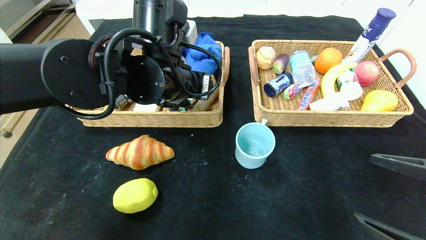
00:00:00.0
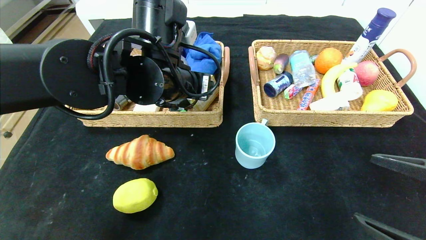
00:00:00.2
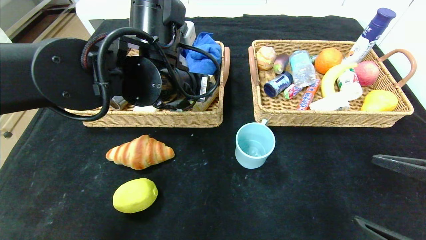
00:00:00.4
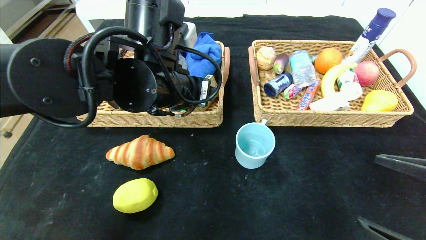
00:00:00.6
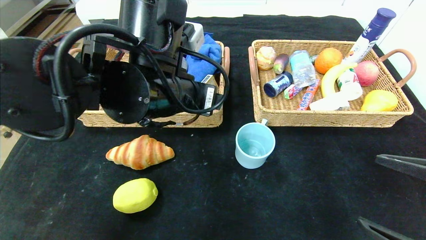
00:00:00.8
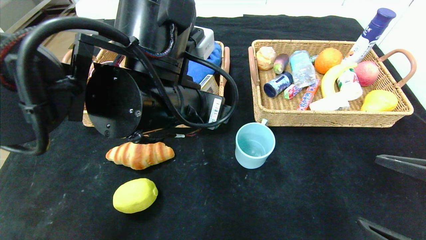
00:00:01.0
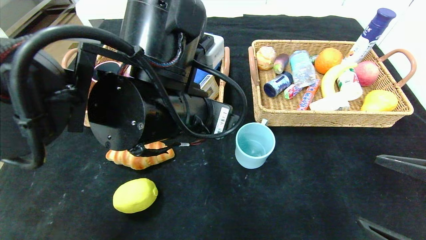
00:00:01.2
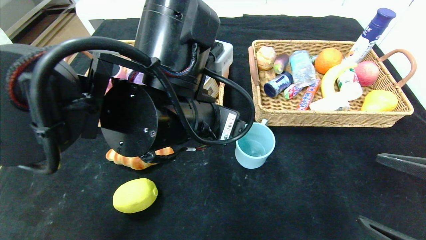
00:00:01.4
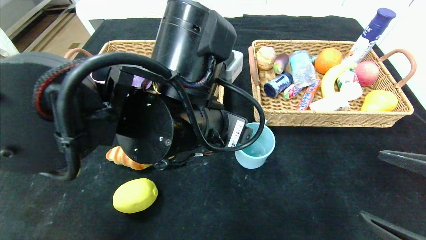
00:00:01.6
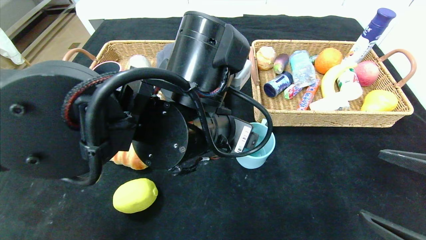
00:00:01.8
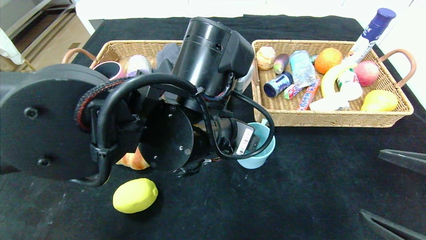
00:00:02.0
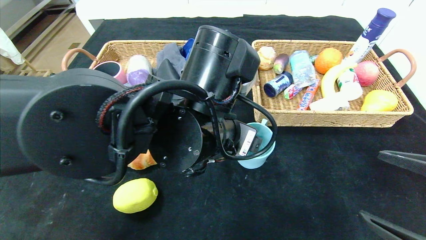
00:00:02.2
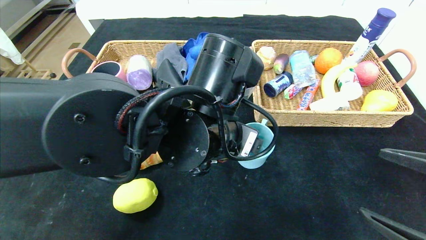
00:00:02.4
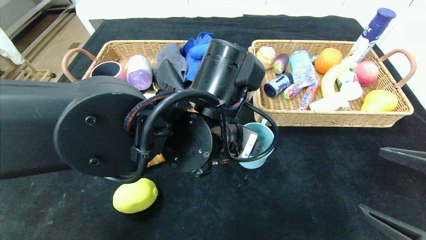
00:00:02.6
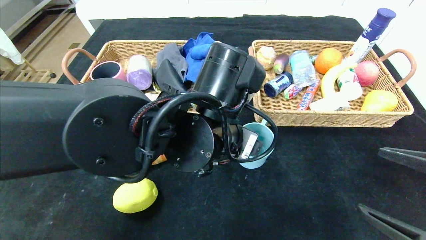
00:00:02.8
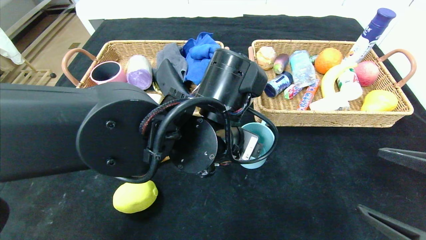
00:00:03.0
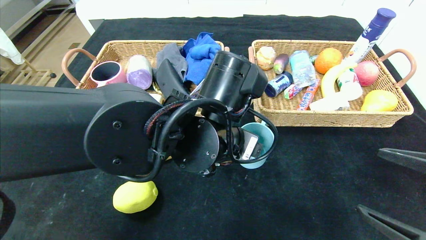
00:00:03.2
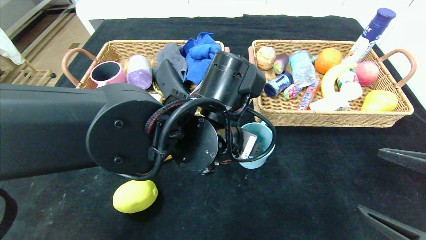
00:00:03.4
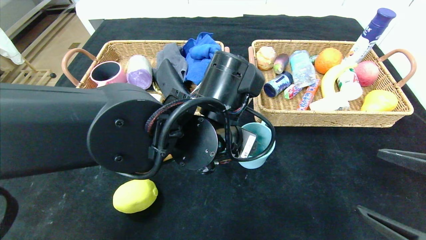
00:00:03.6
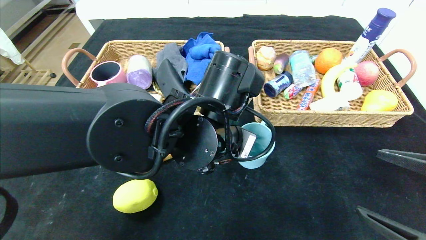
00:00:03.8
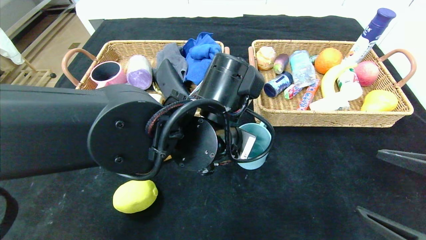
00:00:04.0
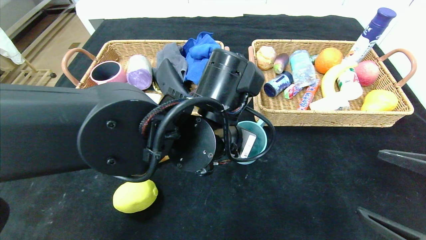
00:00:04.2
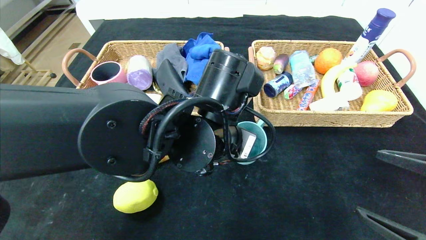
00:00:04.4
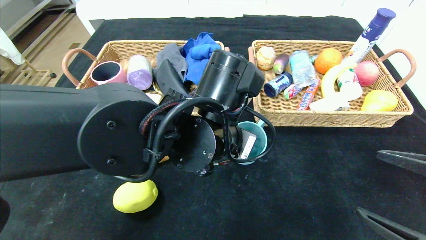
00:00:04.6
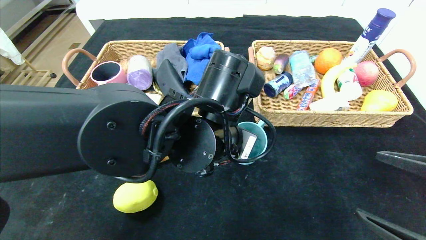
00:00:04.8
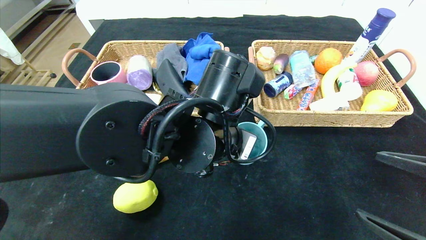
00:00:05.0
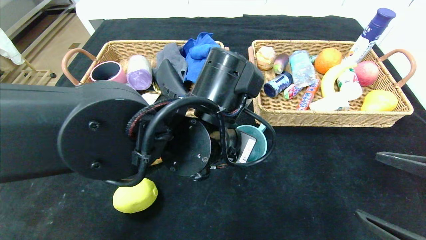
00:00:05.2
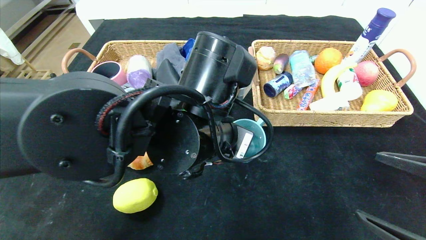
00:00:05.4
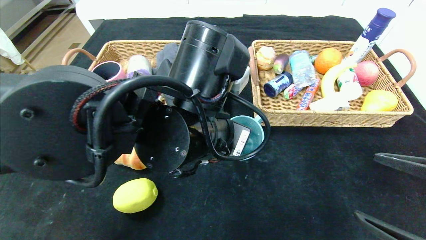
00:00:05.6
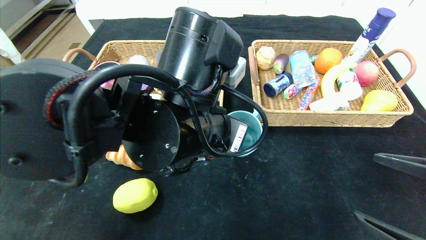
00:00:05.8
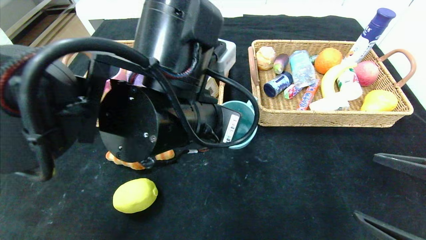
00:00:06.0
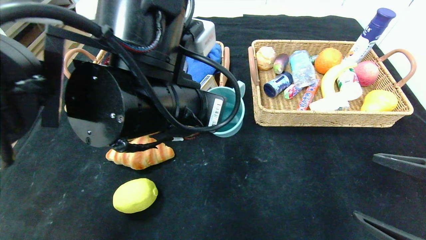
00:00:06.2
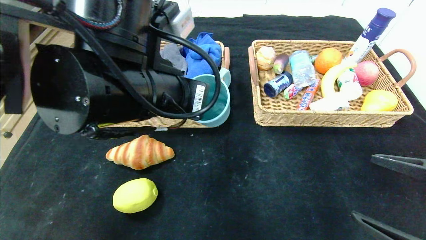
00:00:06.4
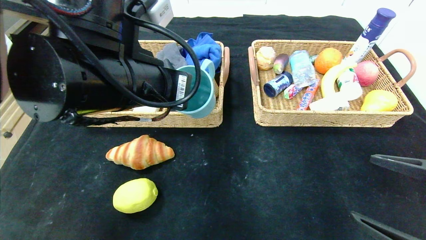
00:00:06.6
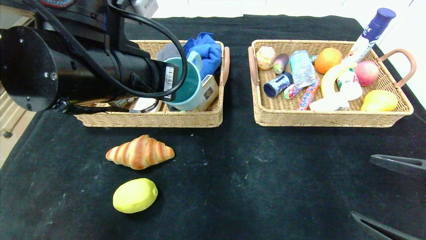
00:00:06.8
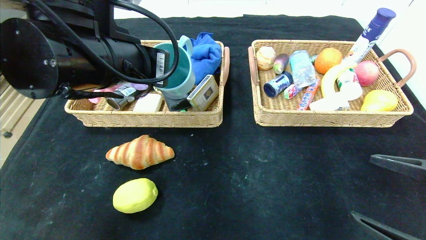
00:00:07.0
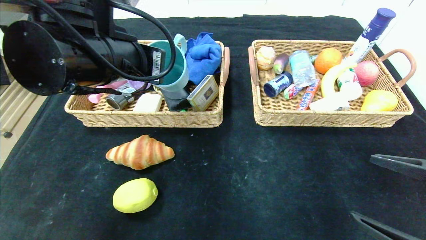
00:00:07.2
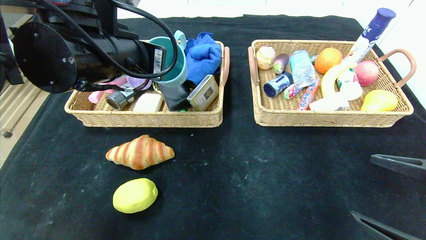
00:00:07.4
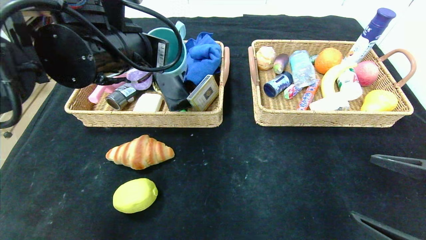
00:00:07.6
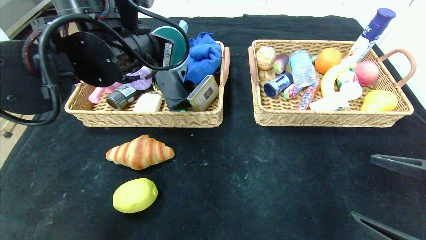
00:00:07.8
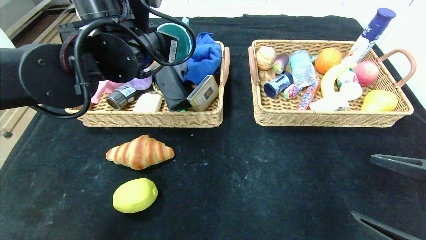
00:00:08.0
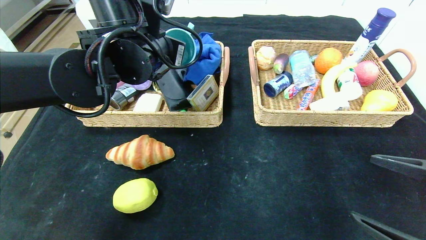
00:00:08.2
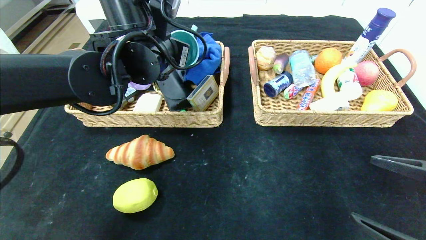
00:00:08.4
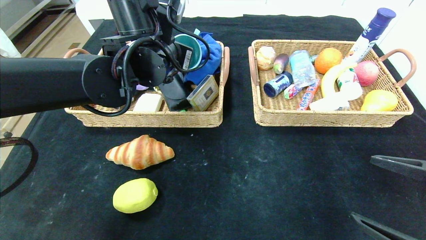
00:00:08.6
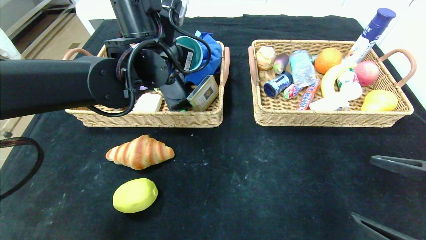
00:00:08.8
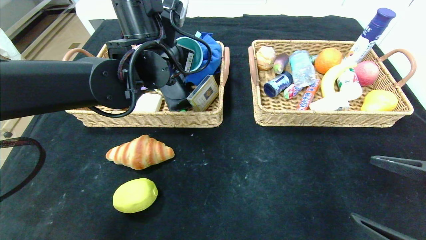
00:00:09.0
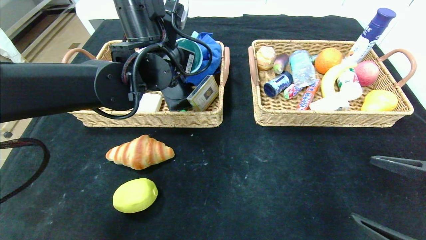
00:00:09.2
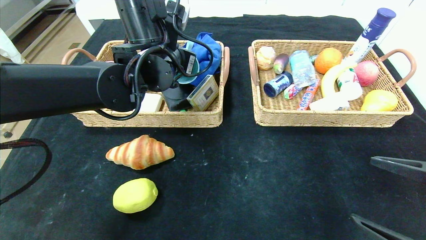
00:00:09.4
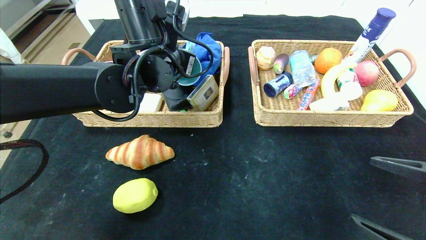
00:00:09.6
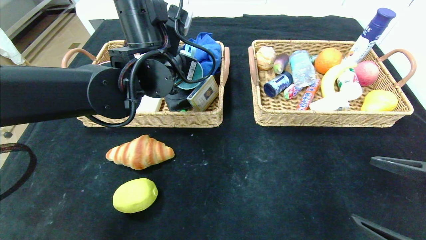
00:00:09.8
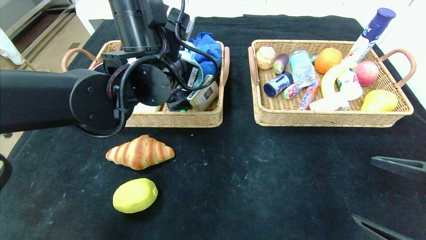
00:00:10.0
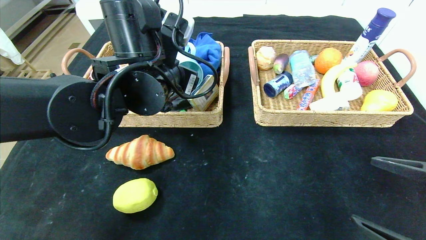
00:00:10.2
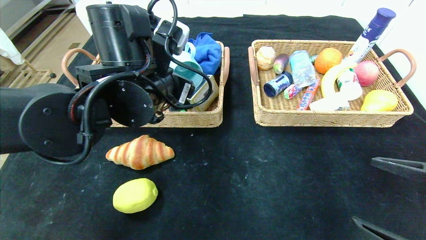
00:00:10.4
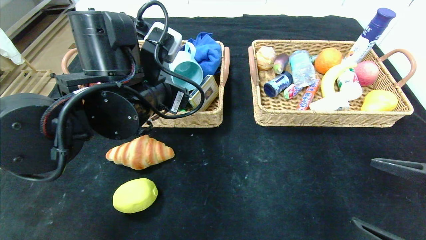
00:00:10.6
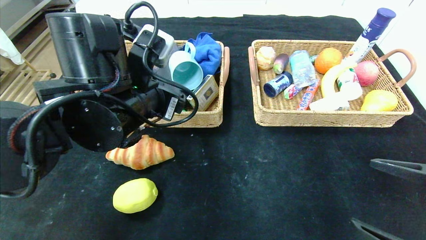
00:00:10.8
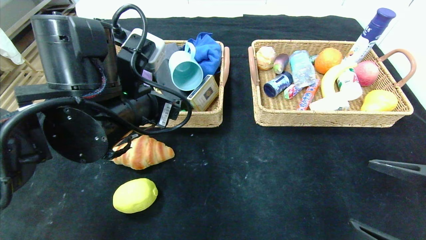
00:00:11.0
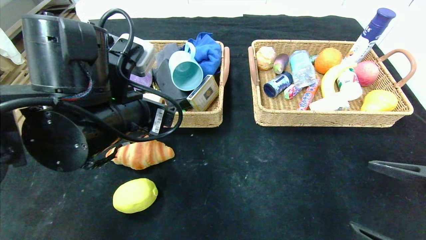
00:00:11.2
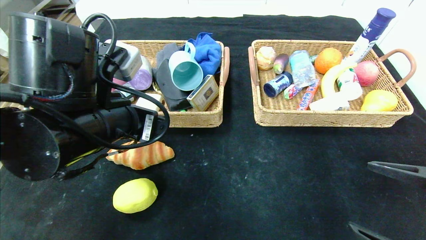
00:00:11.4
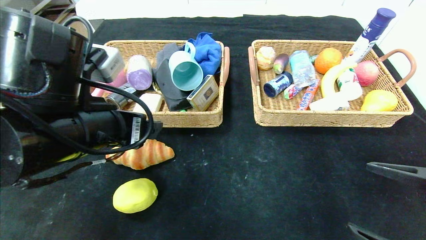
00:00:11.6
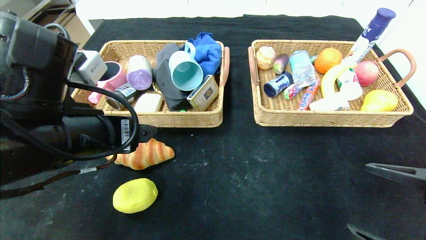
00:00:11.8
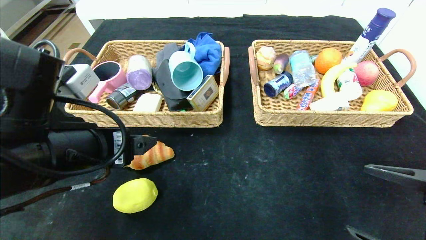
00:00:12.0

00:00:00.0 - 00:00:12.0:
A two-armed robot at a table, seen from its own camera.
Step, 00:00:00.0 - 00:00:10.4: Grasp the blue cup and put it in the left basket.
00:00:00.0 - 00:00:01.6: The left gripper travels backward by roughly 10 cm.
00:00:03.0 - 00:00:04.4: The left gripper closes.
00:00:04.4 - 00:00:06.0: The left gripper changes place by some 5 cm.
00:00:06.0 - 00:00:07.6: The left gripper heads to the left, forward and upward, covering roughly 10 cm.
00:00:07.6 - 00:00:09.0: The left gripper moves forward, approximately 10 cm.
00:00:09.0 - 00:00:10.4: The left gripper goes some 10 cm backward, and opens its fingers.
00:00:10.4 - 00:00:12.0: The left gripper moves backward and to the left, approximately 15 cm.

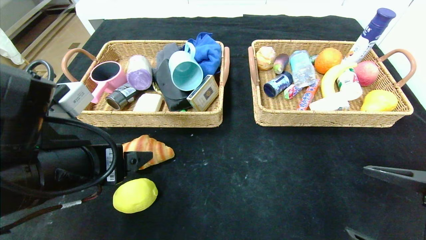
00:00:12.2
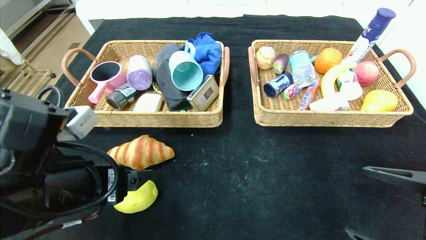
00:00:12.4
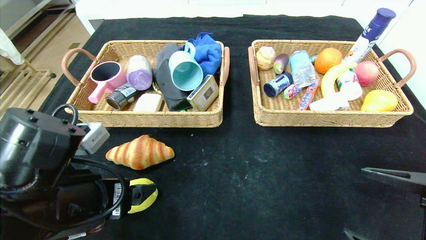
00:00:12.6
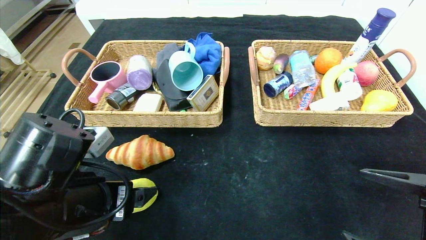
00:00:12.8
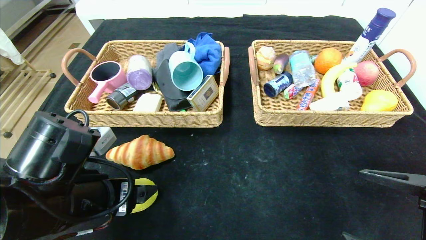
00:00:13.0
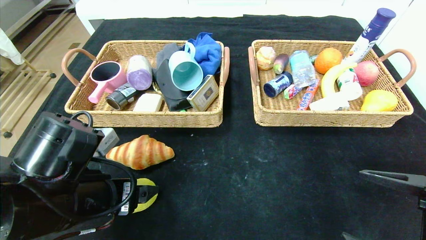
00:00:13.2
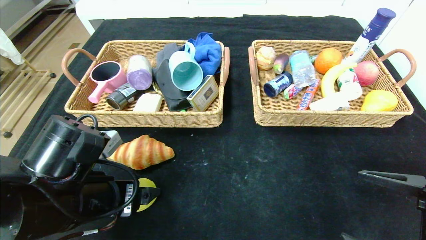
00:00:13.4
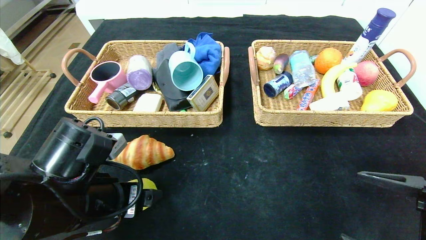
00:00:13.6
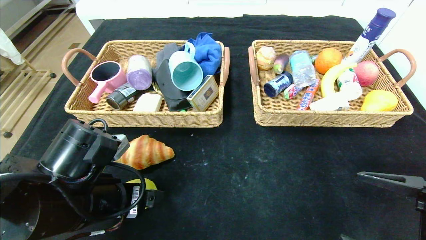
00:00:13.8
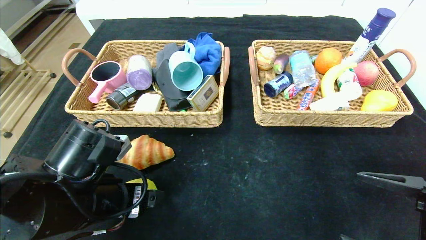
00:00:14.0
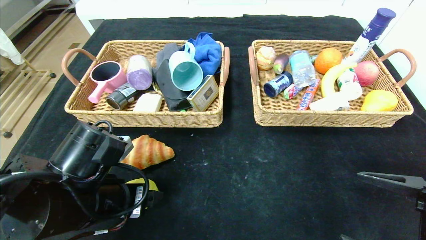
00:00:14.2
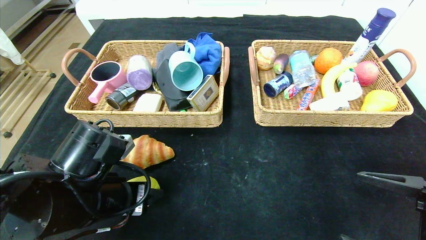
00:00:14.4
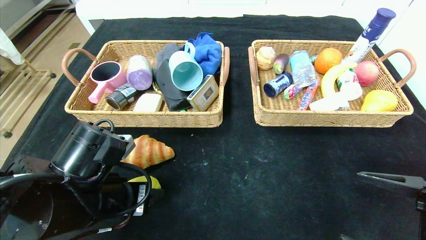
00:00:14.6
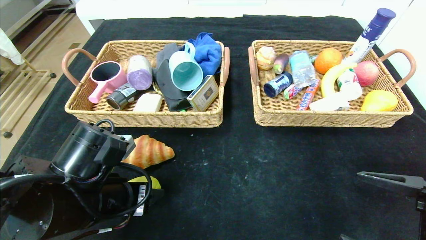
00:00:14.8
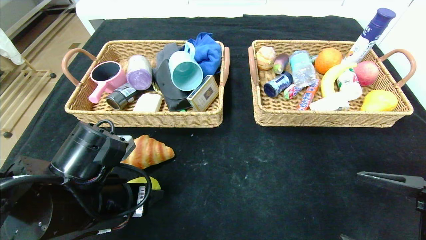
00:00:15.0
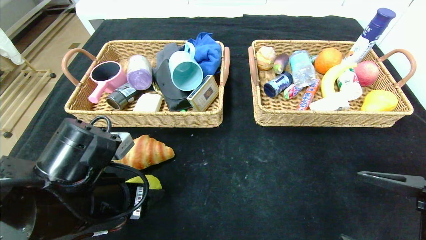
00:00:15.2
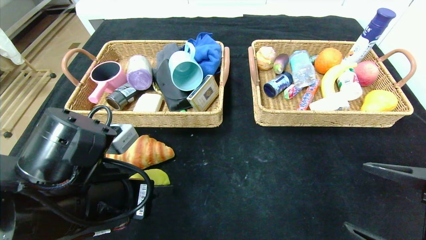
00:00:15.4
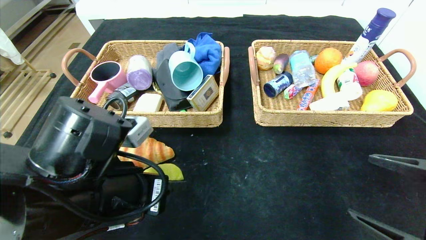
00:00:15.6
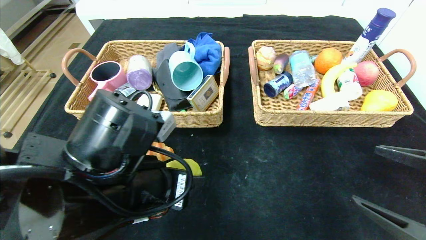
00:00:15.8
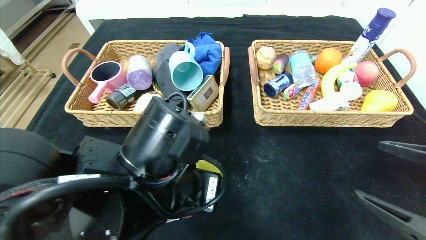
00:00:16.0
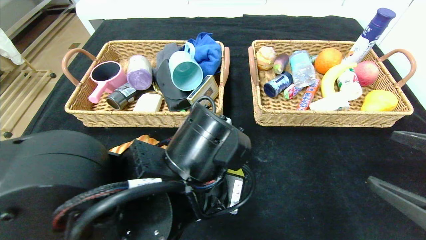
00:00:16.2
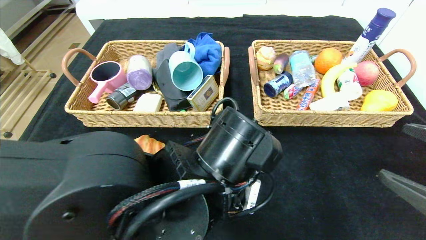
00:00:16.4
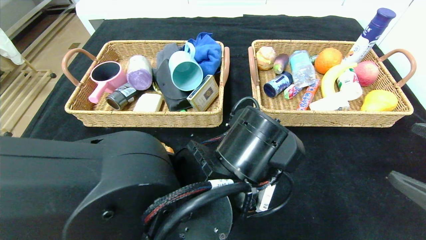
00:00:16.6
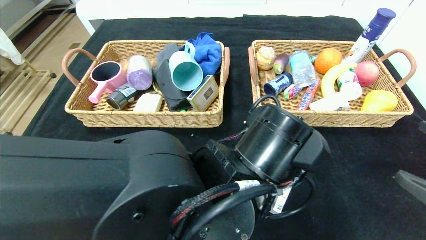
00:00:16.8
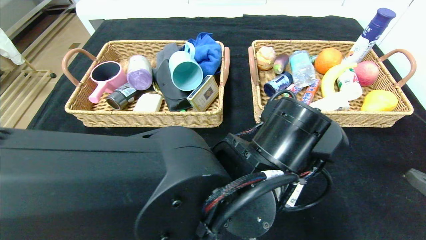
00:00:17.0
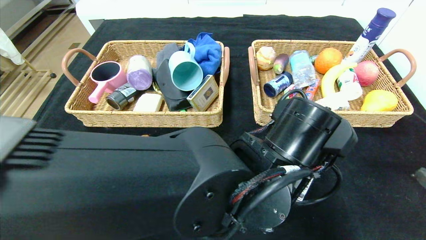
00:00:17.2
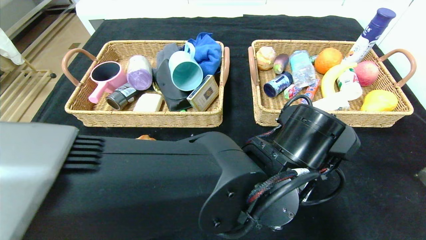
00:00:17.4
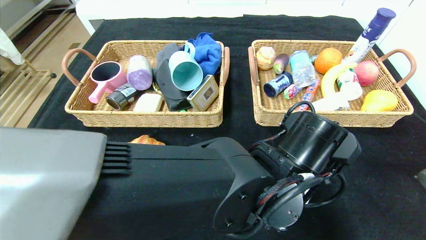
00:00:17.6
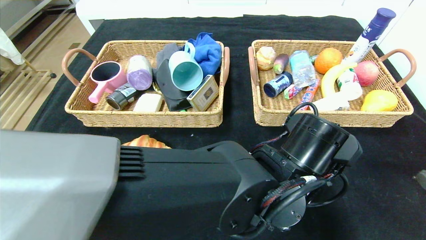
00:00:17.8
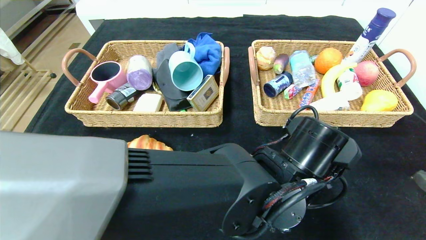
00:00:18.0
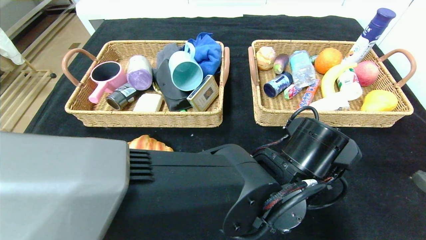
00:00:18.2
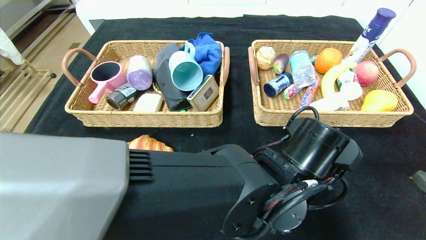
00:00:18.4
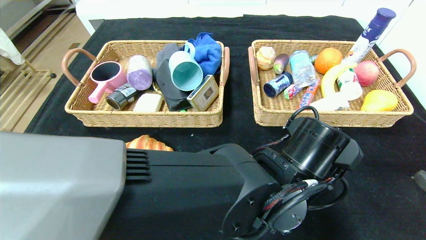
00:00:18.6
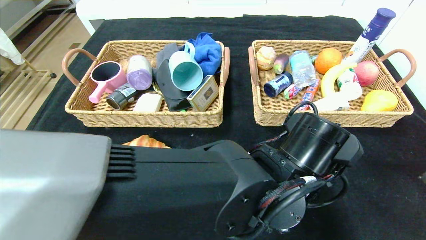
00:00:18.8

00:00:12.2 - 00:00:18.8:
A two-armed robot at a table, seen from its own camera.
00:00:12.2 - 00:00:13.8: The left gripper moves downward, about 5 cm.
00:00:13.8 - 00:00:15.4: The grippers make only small movements.
00:00:15.4 - 00:00:17.2: The left gripper moves to the right, approximately 20 cm. The right gripper is displaced upward by about 5 cm.
